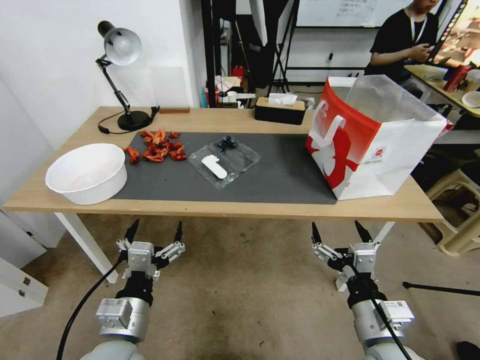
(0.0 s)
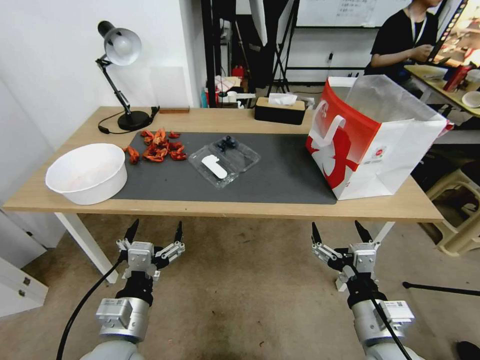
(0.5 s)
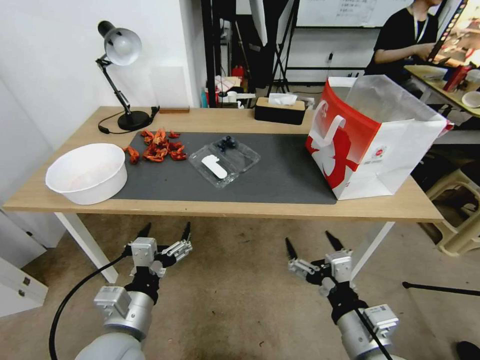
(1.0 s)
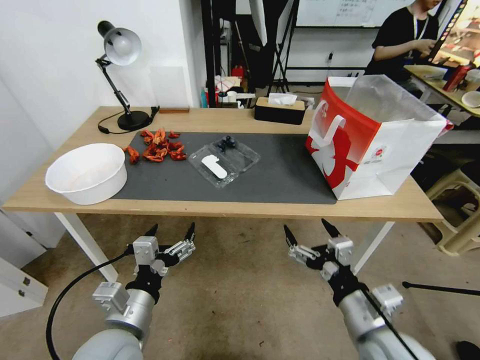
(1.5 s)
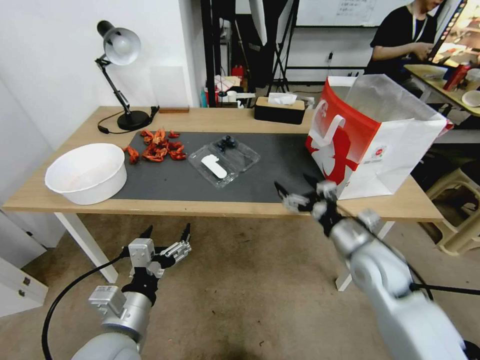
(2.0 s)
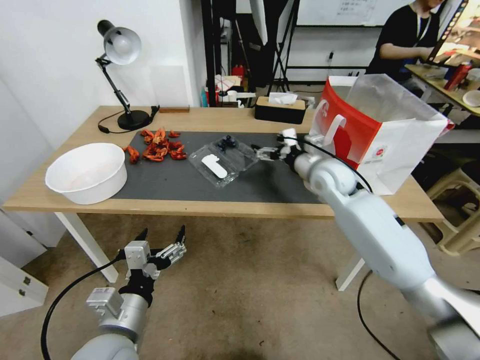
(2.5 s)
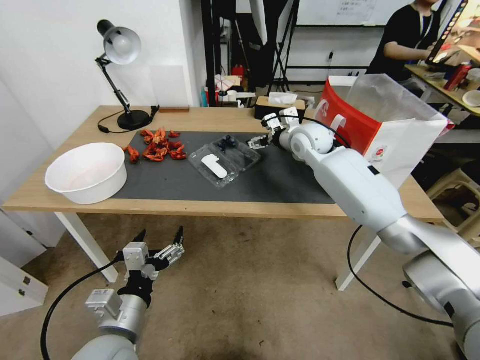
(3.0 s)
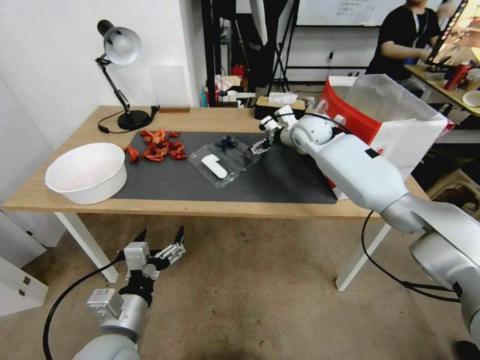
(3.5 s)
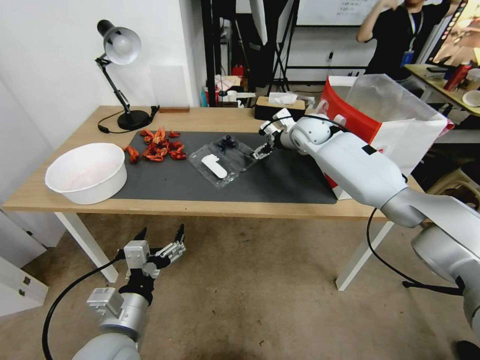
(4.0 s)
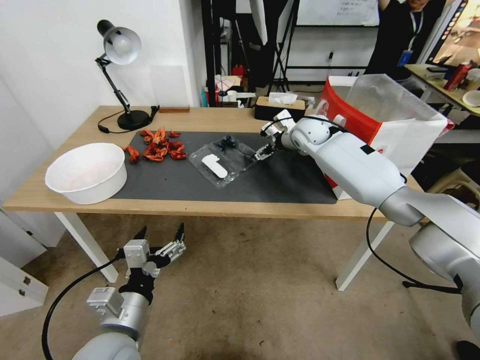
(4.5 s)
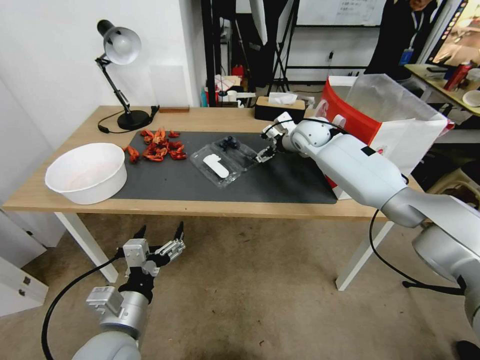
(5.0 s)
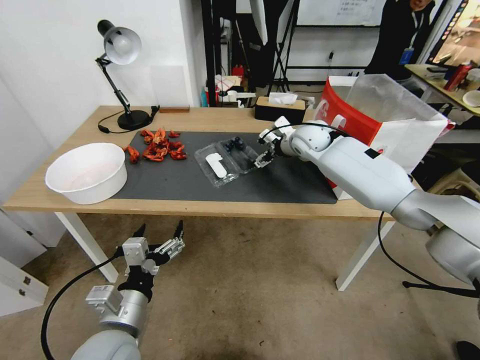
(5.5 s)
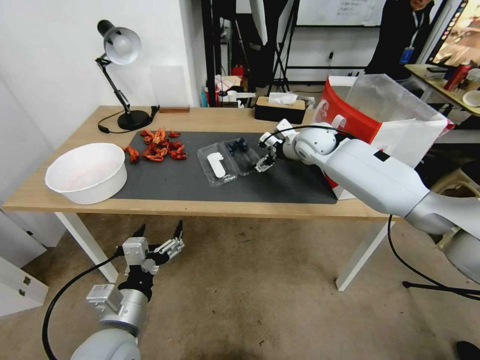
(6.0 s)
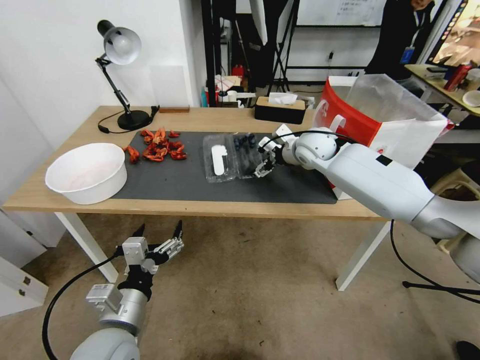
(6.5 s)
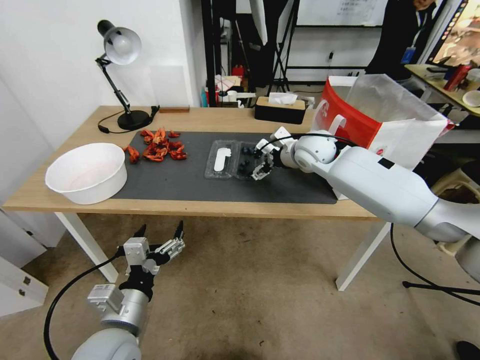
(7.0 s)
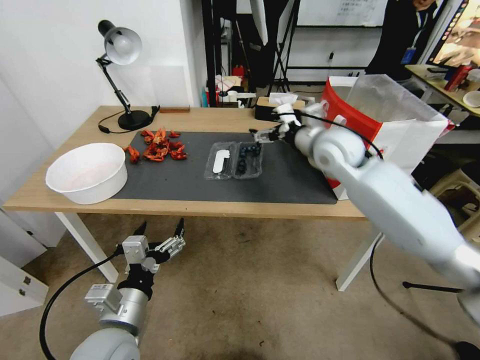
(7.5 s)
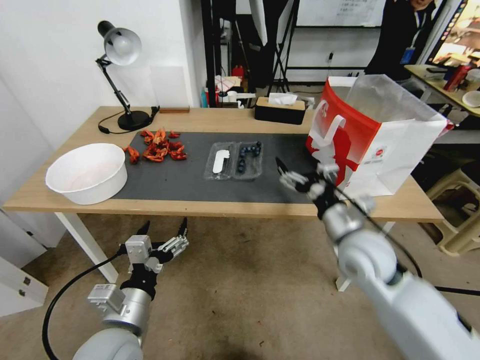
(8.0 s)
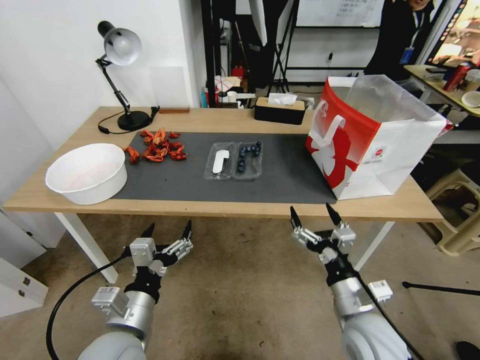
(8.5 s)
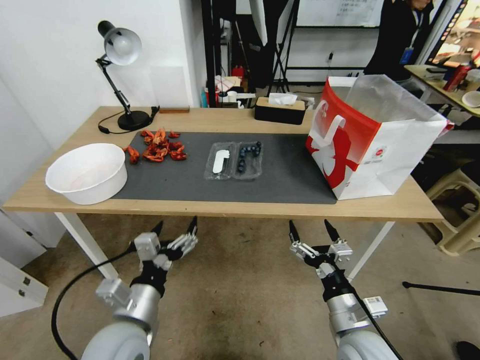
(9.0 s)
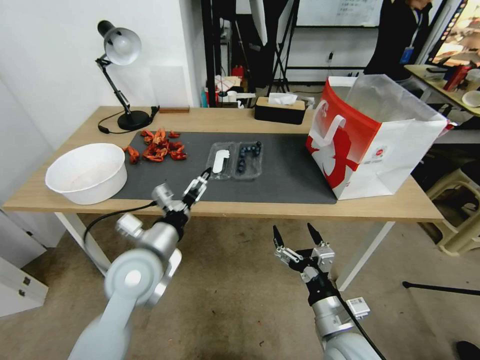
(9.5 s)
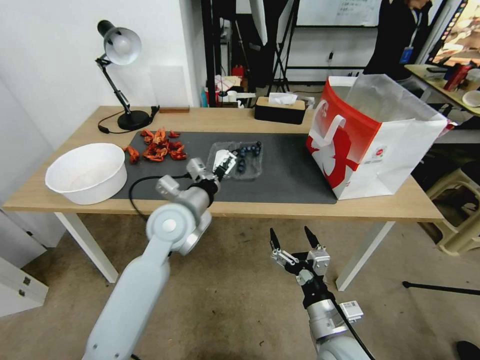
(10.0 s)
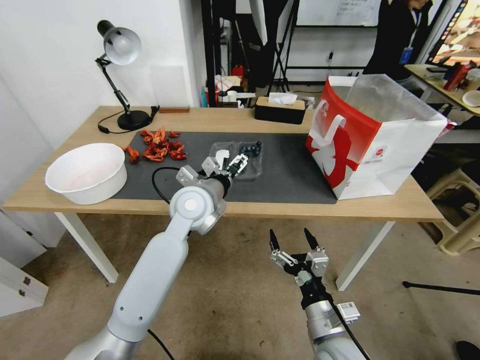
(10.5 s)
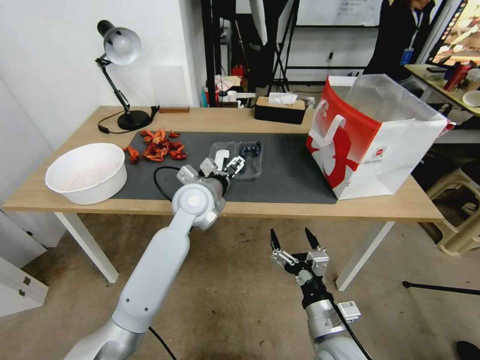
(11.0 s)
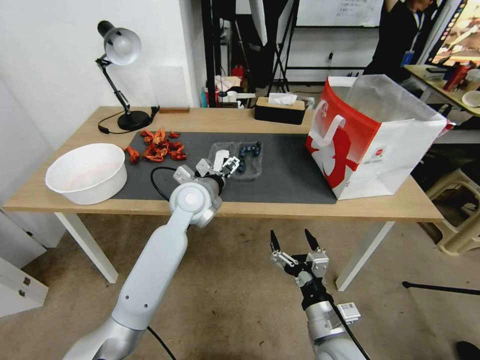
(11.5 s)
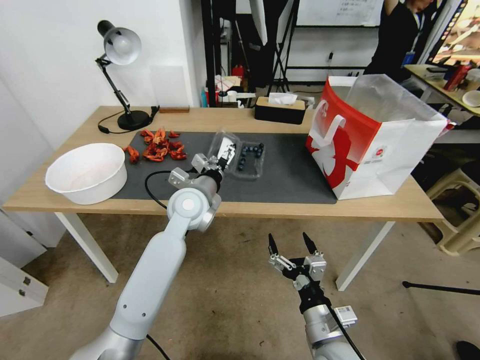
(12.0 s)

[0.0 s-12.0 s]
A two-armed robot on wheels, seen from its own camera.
Task of the whole recording: Close the takeout container lid, then place the container into the takeout bag.
2.0 to 4.0 s: The right gripper goes approximately 30 cm forward.
4.0 to 6.0 s: The grippers move only a little.
6.0 to 8.0 s: The right gripper heads backward, covering about 25 cm.
8.0 to 10.0 s: The right gripper goes approximately 20 cm backward and downward; the left gripper shifts about 20 cm forward.
10.0 to 12.0 s: The left gripper goes about 5 cm forward.

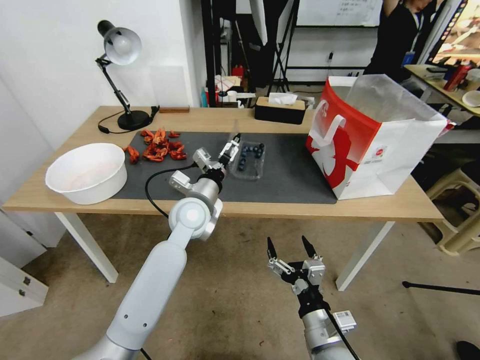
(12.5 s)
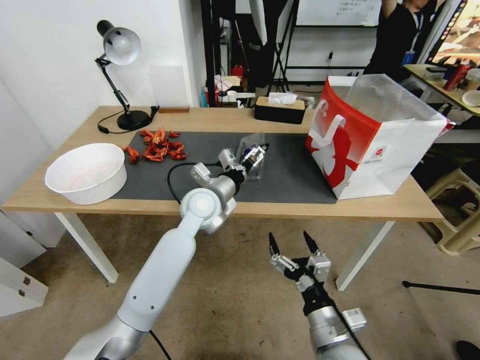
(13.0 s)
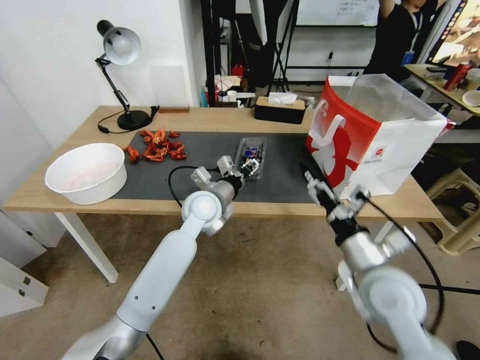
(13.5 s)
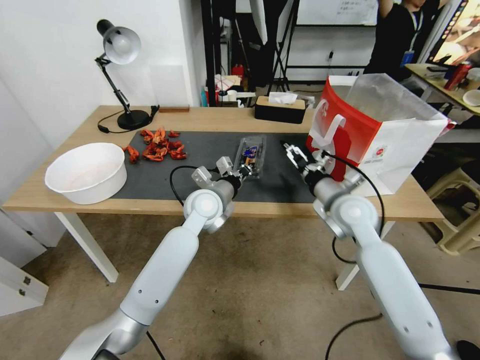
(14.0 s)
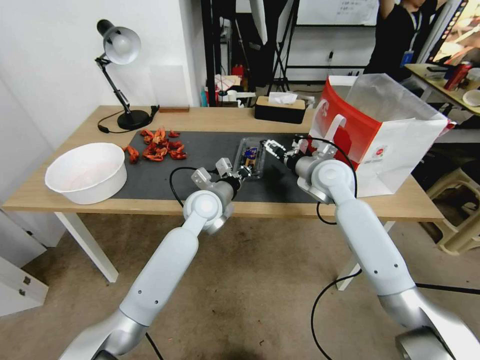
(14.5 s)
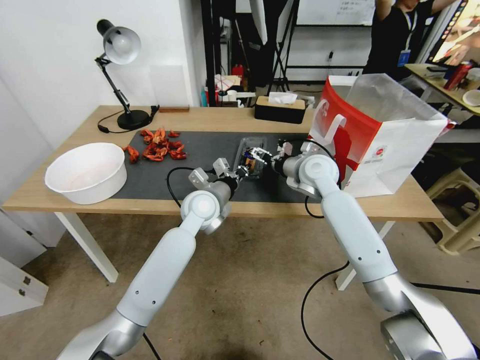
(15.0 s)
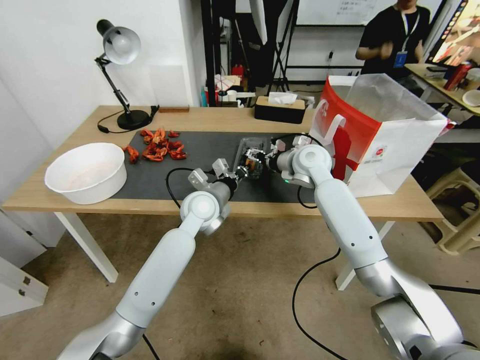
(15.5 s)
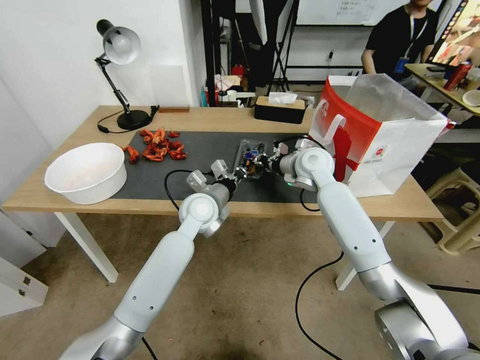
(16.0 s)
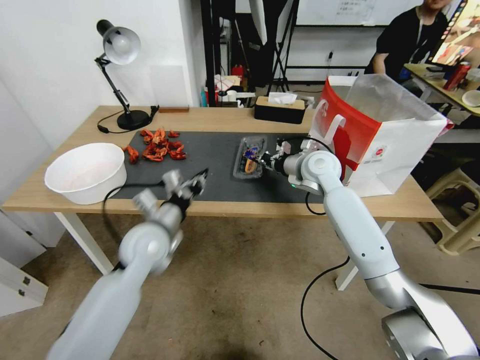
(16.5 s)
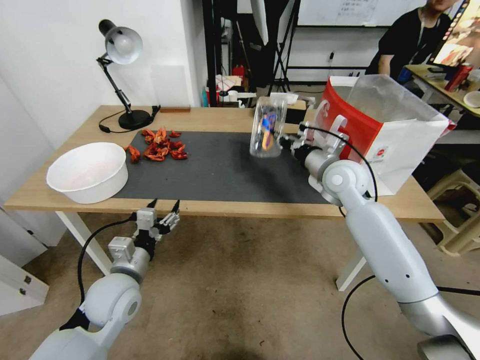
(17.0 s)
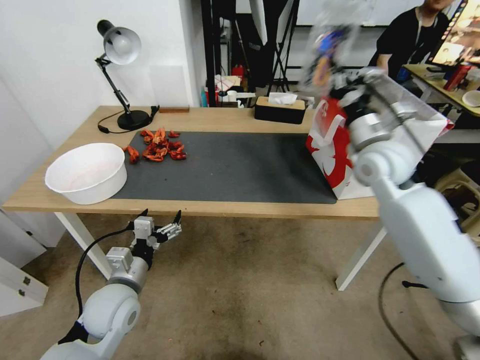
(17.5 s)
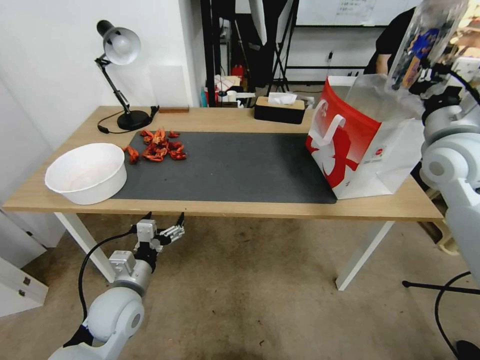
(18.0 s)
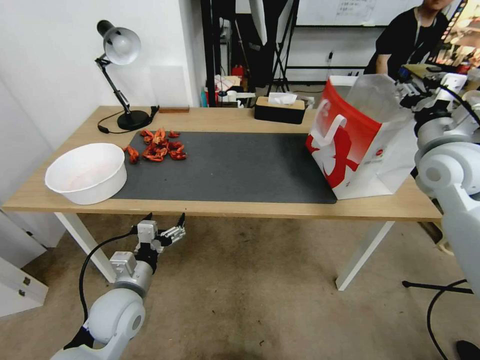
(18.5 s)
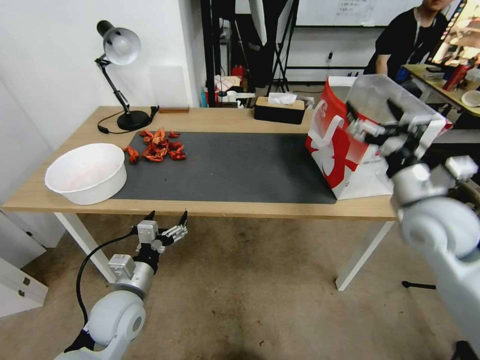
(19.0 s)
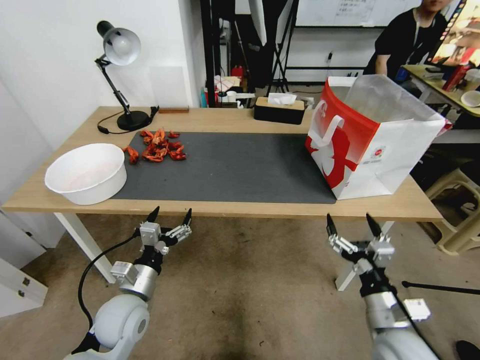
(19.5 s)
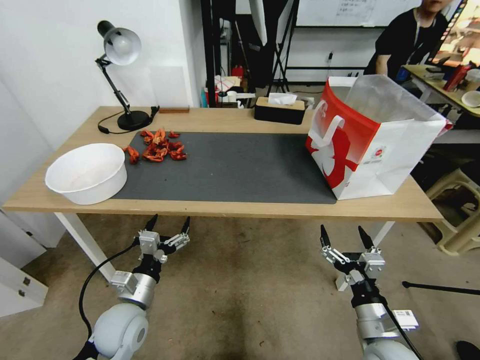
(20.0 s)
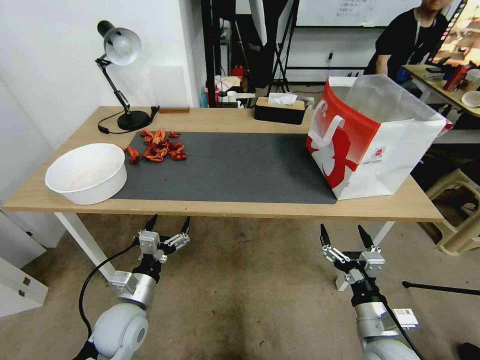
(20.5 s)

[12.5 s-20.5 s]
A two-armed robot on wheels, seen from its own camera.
Task of the whole recording: Close the takeout container lid, then place the container into the takeout bag.
12.5 to 14.5 s: The left gripper closes; the right gripper moves forward and upward, about 40 cm.
14.5 to 16.5 s: The left gripper heads to the left and backward, covering about 15 cm, while the right gripper closes its fingers.
16.5 to 18.5 s: The right gripper heads to the right, backward and upward, covering roughly 25 cm, and opens up, while the left gripper travels backward, downward and to the left by some 15 cm, and opens its fingers.
18.5 to 20.5 s: The right gripper travels downward and backward by about 35 cm, and opens.
